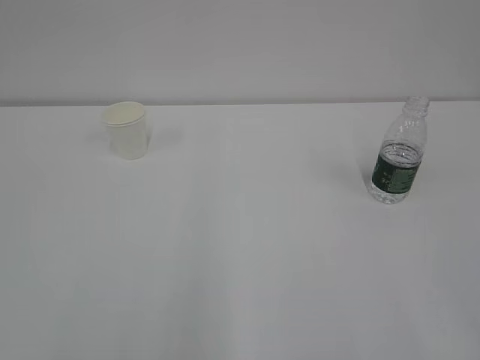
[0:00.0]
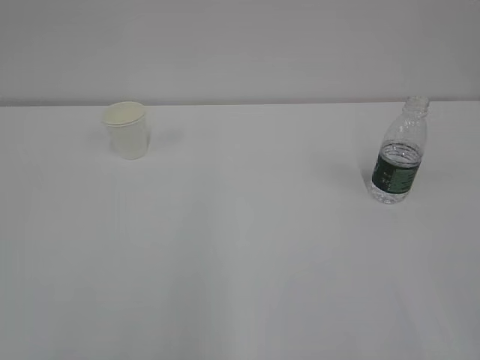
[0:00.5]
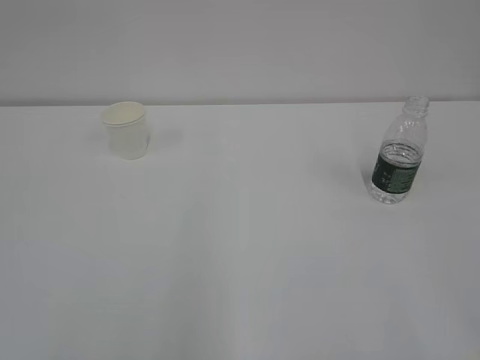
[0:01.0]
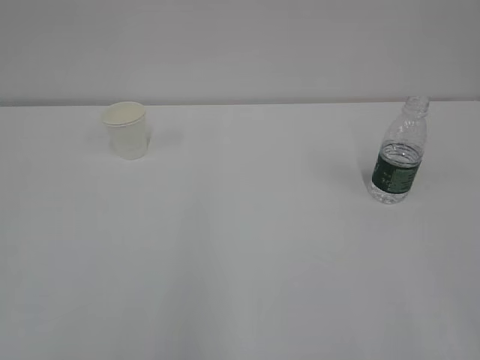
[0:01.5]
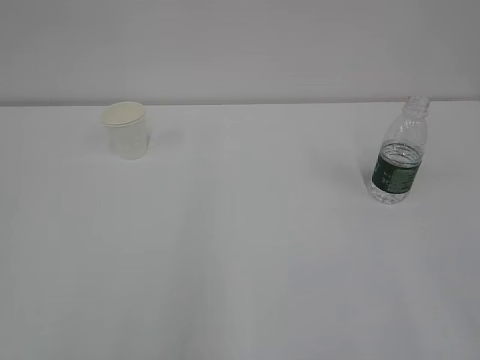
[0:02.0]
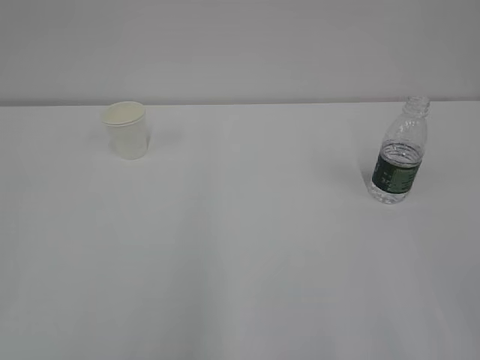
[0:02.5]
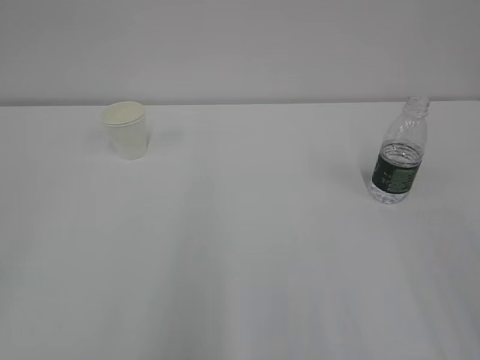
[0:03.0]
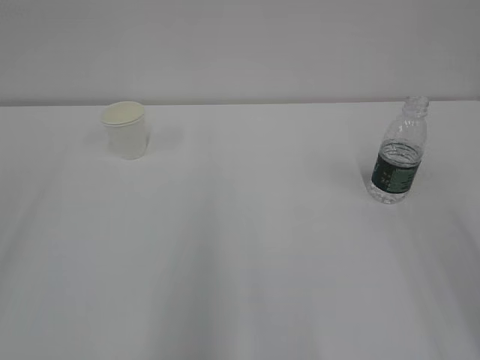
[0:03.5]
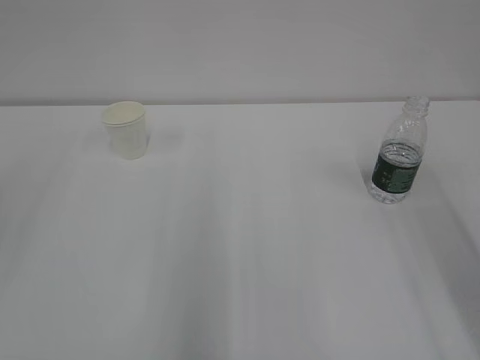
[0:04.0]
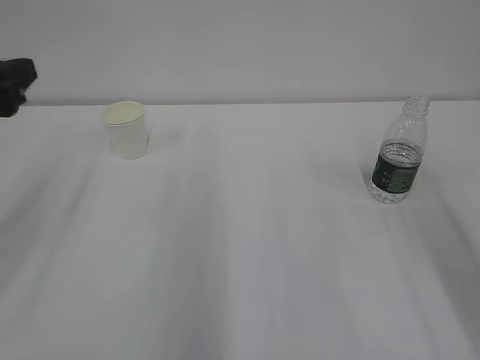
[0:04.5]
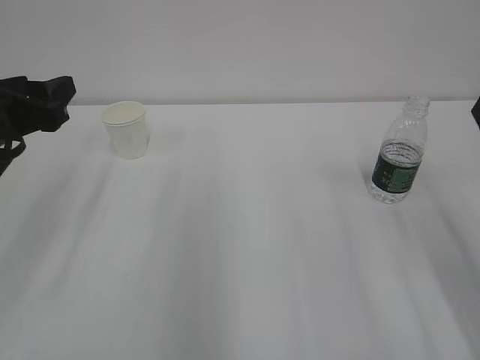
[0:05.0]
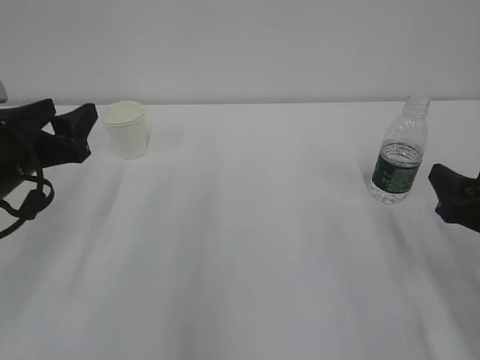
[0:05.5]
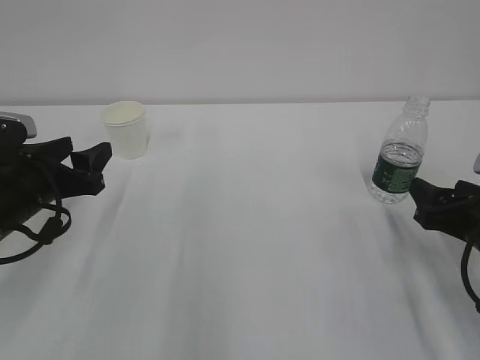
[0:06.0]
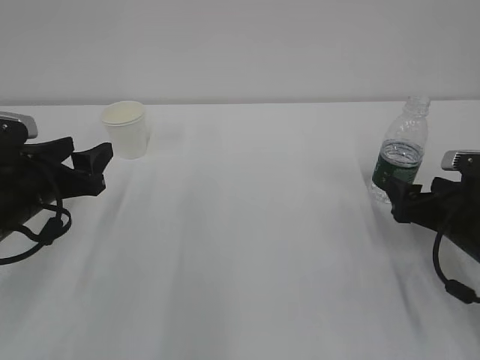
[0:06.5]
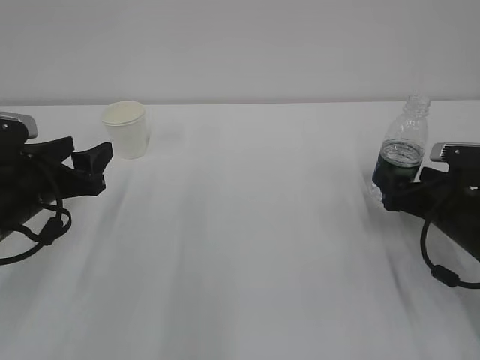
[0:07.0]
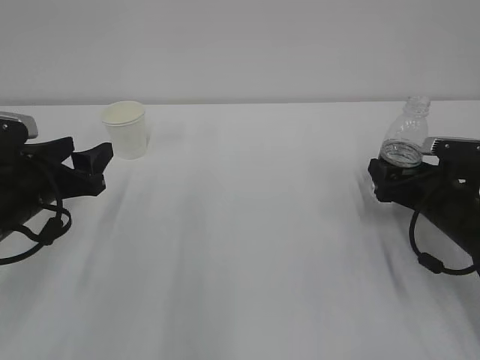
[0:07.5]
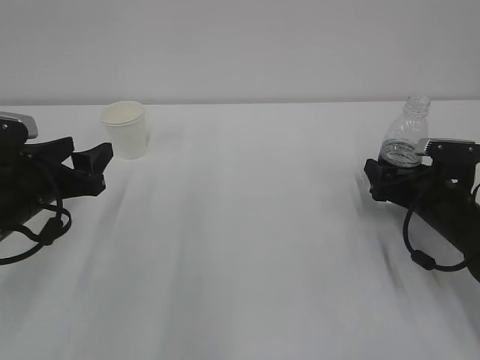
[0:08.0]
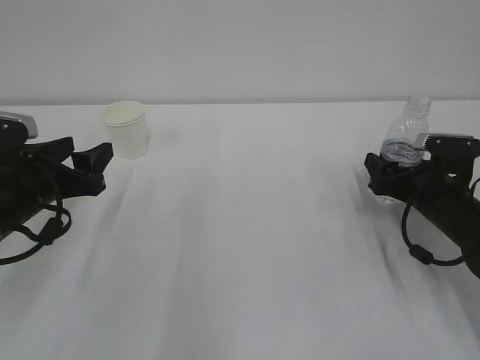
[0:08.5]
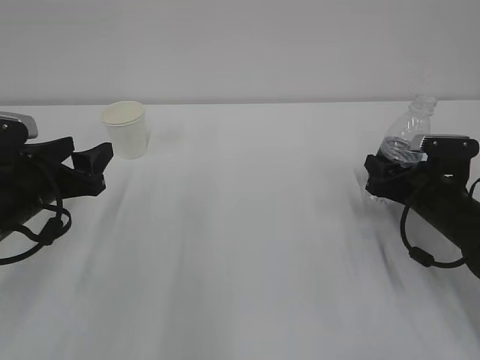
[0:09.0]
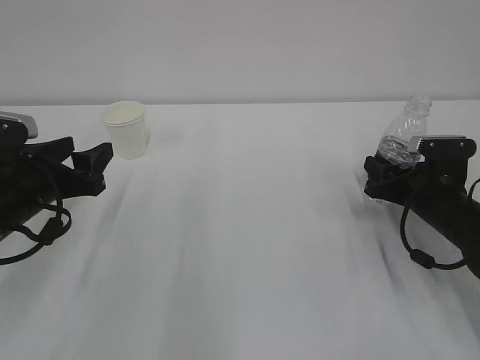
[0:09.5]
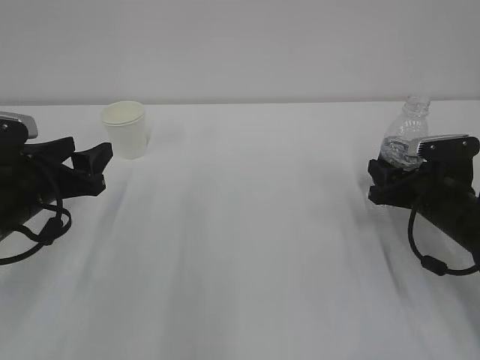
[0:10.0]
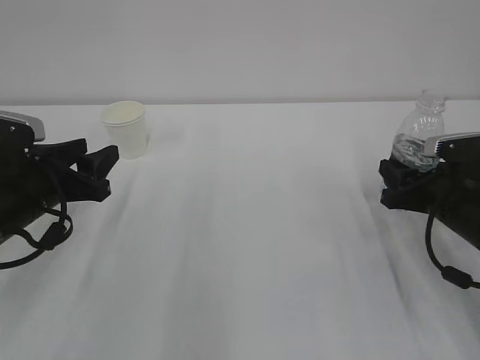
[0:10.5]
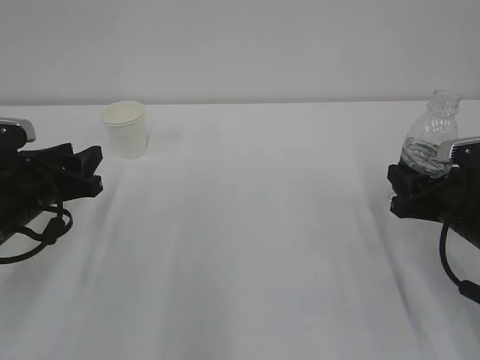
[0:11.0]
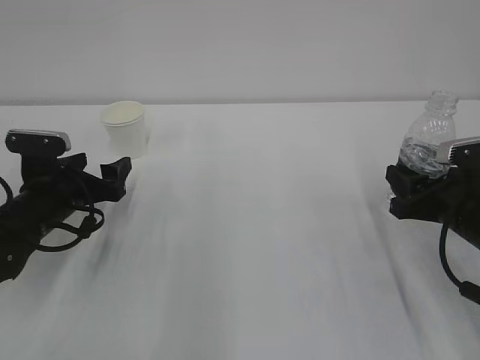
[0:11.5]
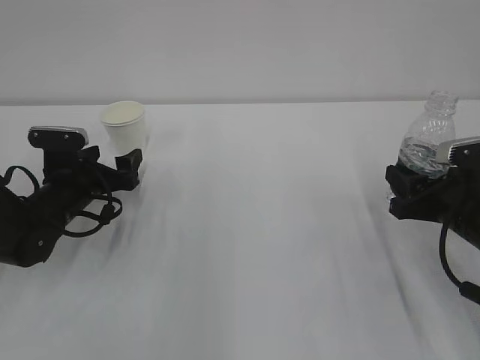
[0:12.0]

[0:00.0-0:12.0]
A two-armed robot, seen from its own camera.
0:04.0 to 0:06.0: The left gripper goes approximately 20 cm downward and forward. The right gripper is displaced downward by some 20 cm.
0:06.0 to 0:08.0: The right gripper moves forward and downward, roughly 10 cm, and opens its fingers.
0:08.0 to 0:10.0: The right gripper closes up.
0:10.0 to 0:12.0: The right gripper goes approximately 5 cm backward. Meanwhile the left gripper is displaced forward and downward by some 10 cm, and opens its fingers.

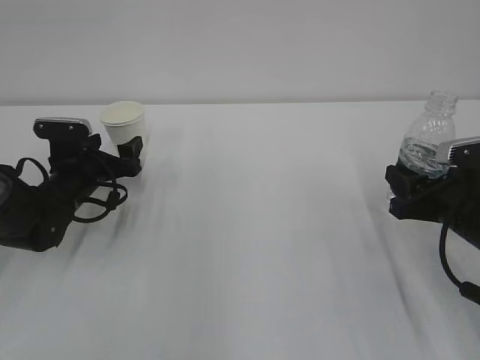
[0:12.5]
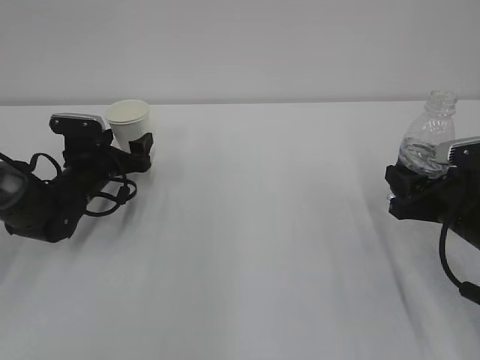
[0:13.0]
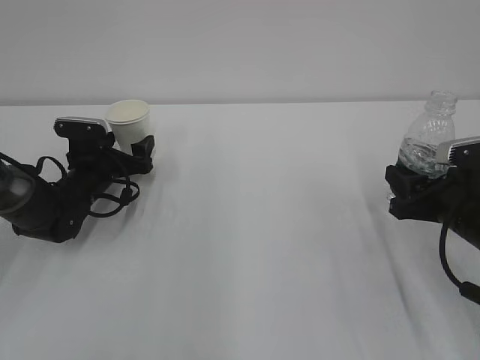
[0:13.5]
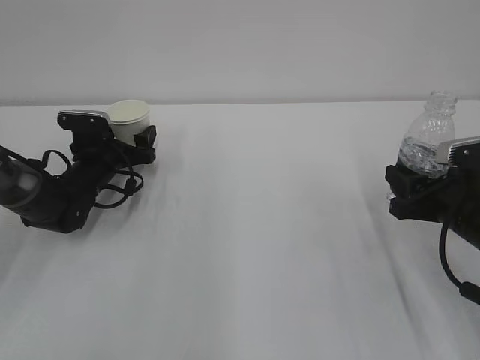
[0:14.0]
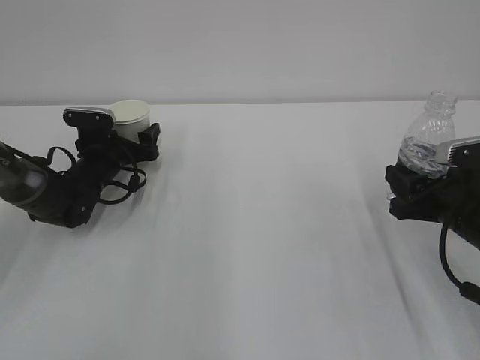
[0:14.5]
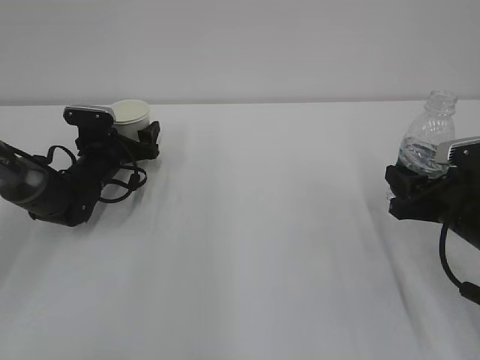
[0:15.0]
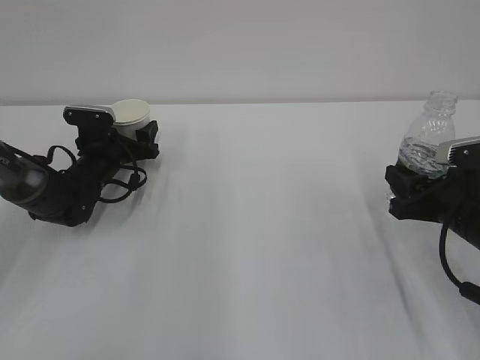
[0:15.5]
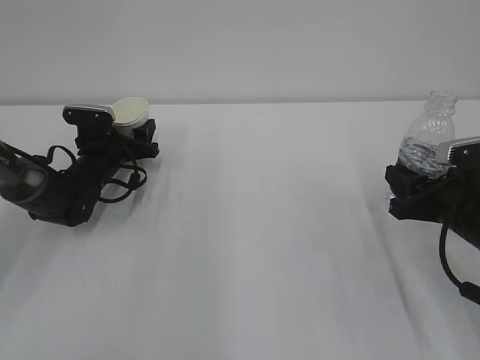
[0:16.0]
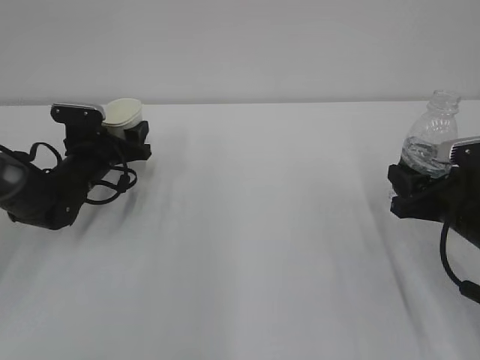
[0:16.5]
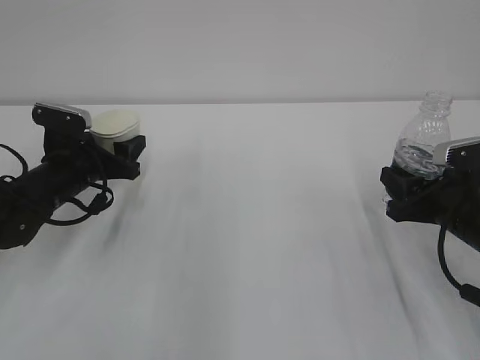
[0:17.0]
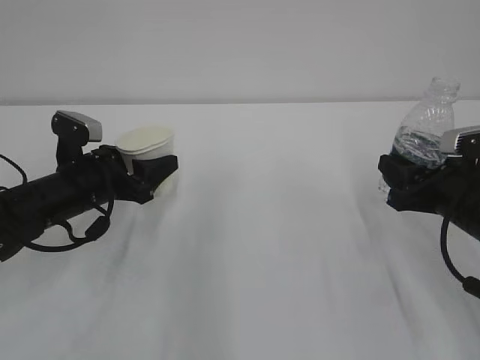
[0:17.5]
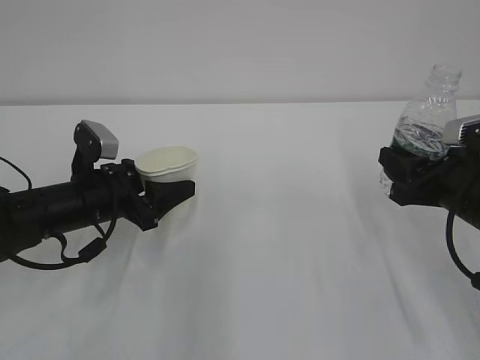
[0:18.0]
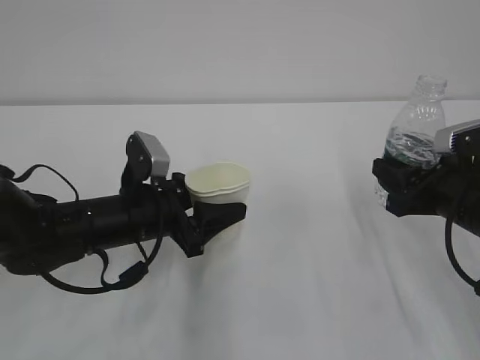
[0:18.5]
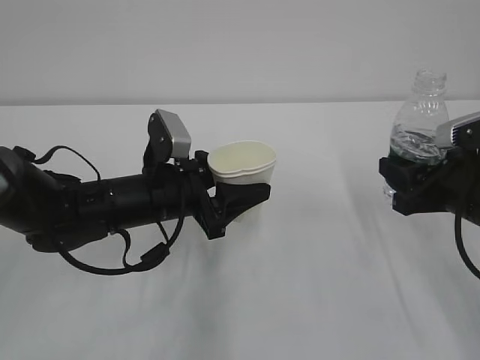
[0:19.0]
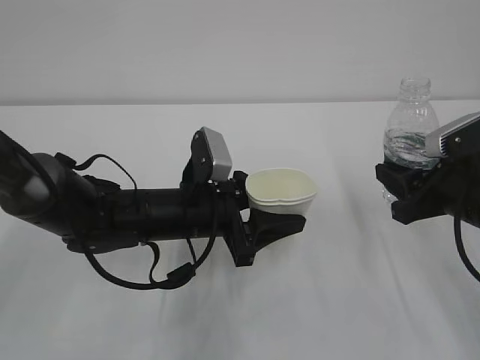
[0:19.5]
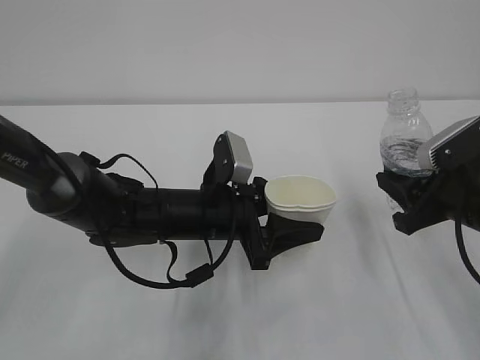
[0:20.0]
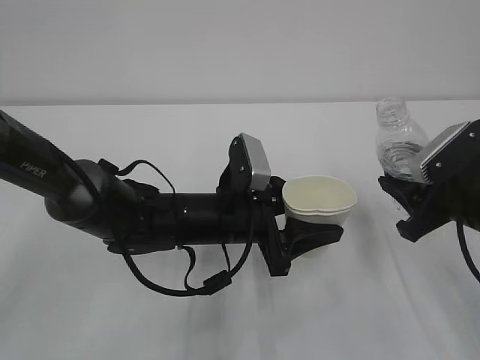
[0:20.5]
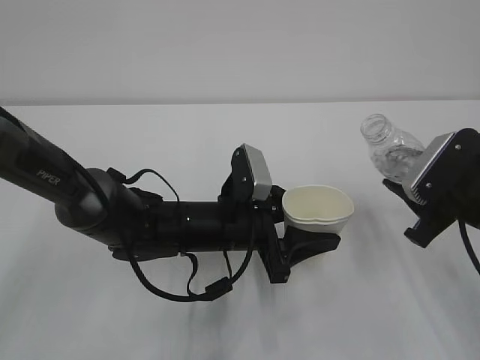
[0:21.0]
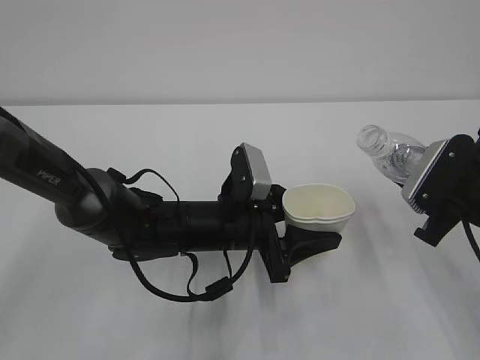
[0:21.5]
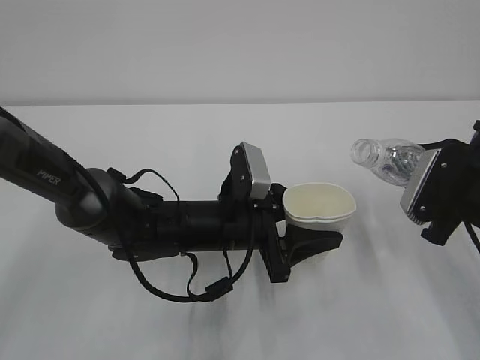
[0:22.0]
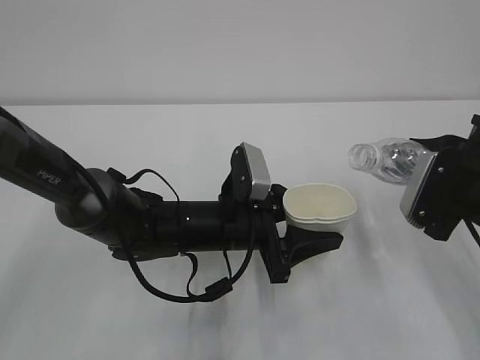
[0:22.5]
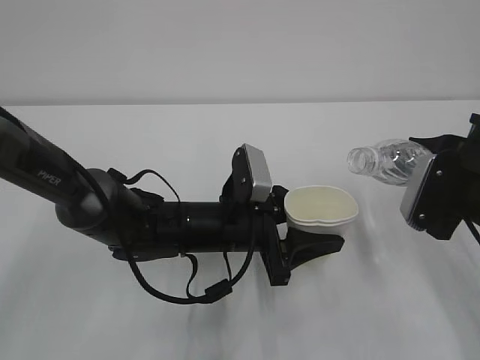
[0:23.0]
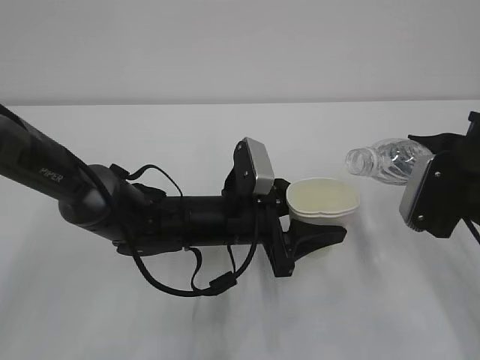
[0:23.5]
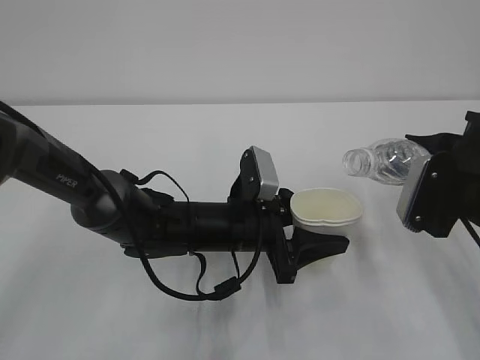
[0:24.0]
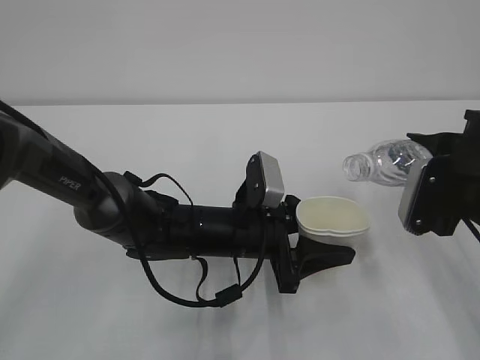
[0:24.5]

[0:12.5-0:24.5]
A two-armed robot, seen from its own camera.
0:12.5 to 0:14.5: The left gripper moves forward, roughly 5 cm.
0:14.5 to 0:16.5: The left gripper closes up.
0:16.5 to 0:18.5: The left gripper goes approximately 15 cm backward and to the right.
0:18.5 to 0:20.5: The left gripper goes roughly 10 cm to the right.
0:22.5 to 0:24.5: The grippers make only small movements.

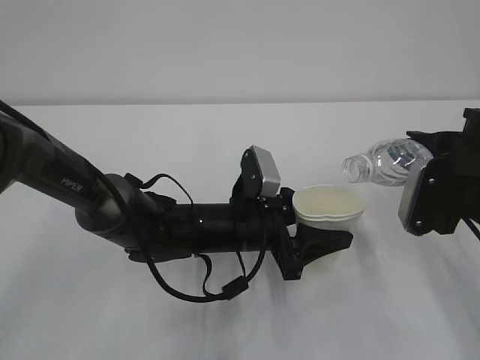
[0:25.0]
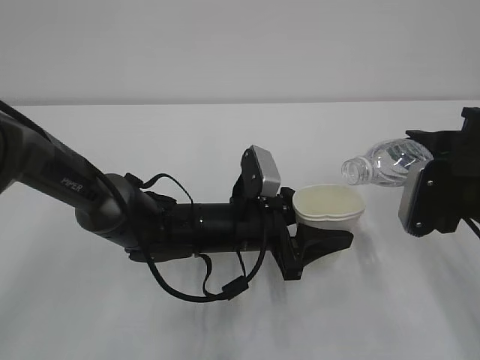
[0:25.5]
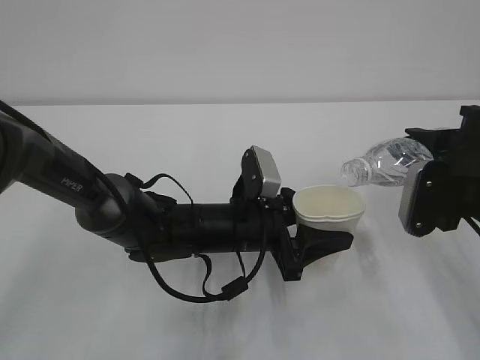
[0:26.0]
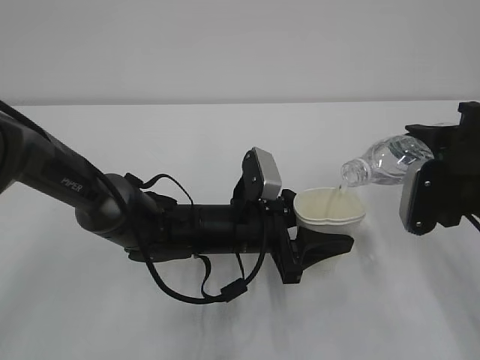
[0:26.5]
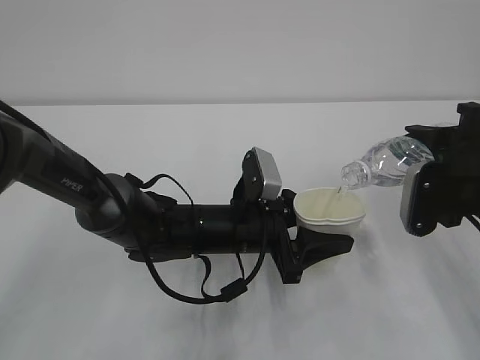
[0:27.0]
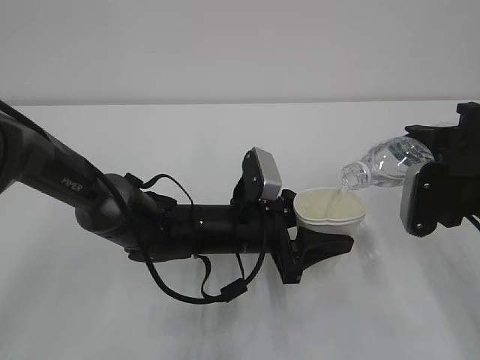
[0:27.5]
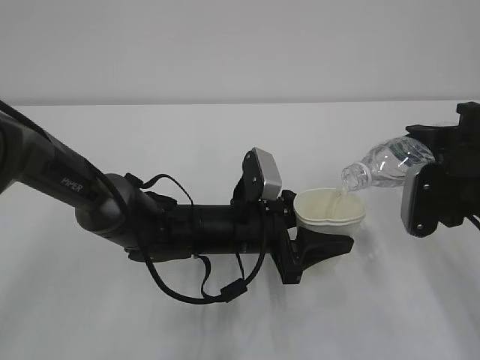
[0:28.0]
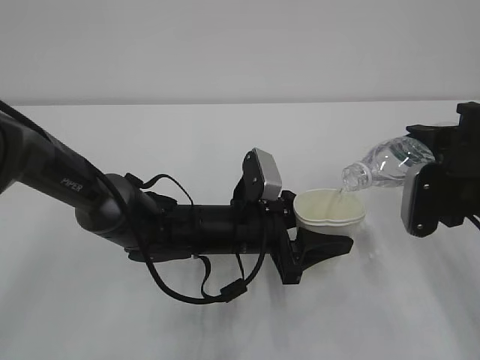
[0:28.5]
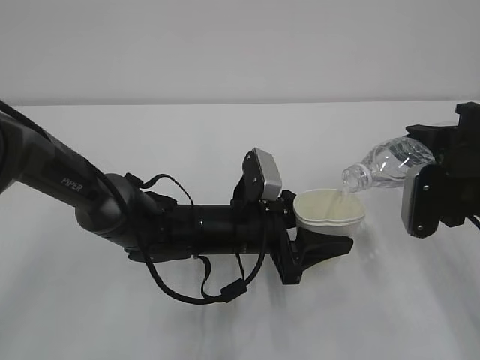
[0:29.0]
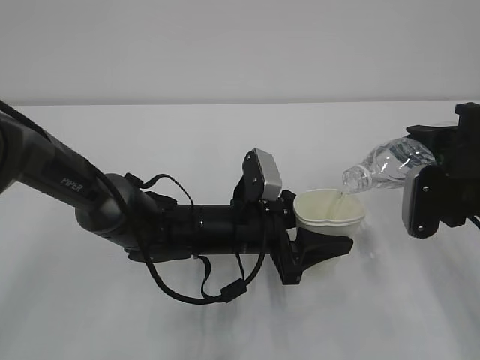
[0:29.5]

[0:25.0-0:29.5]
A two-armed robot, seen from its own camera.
0:25.0 to 0:27.0: The grippers make only small movements.
0:27.0 to 0:29.5: The two grippers keep their place.
